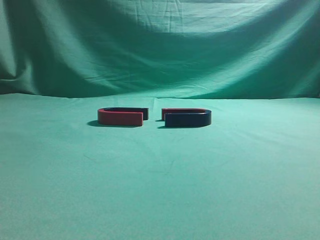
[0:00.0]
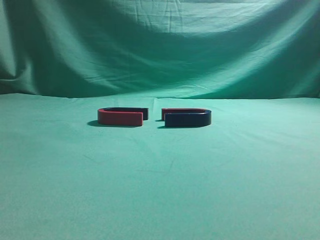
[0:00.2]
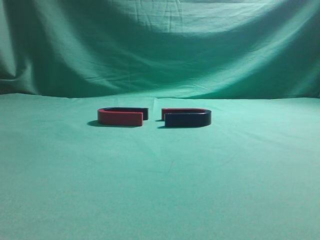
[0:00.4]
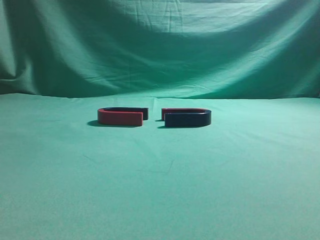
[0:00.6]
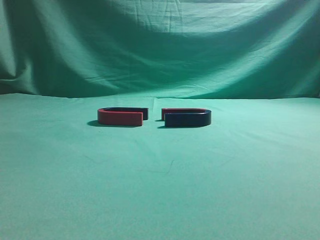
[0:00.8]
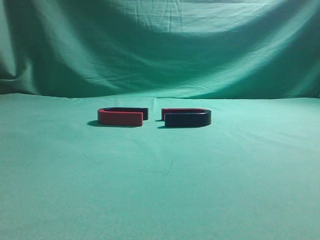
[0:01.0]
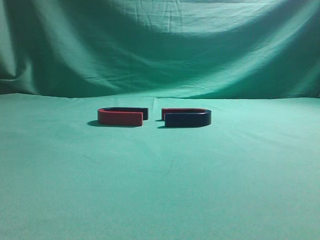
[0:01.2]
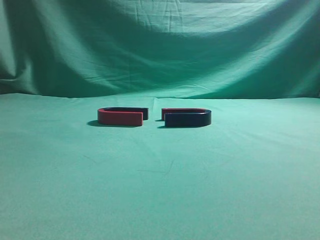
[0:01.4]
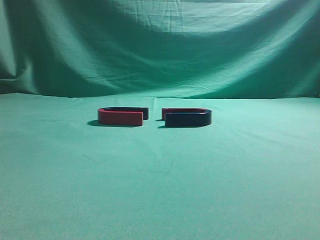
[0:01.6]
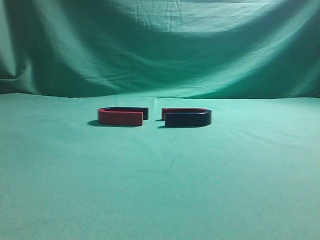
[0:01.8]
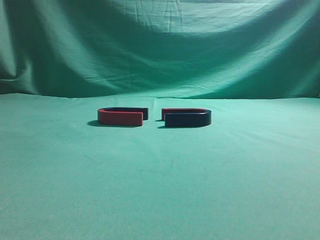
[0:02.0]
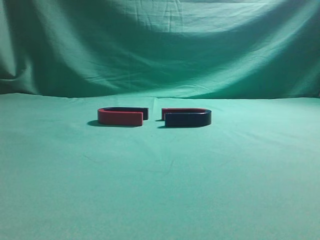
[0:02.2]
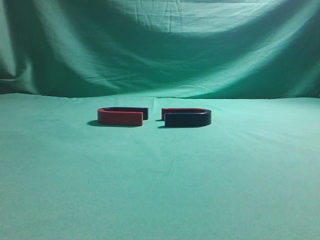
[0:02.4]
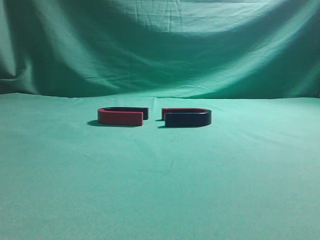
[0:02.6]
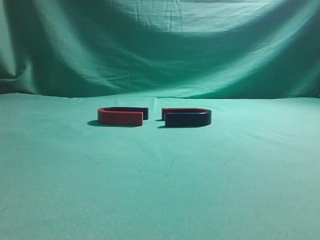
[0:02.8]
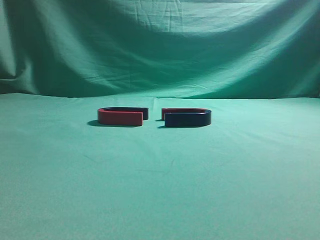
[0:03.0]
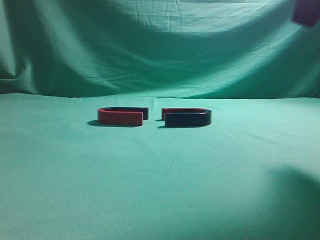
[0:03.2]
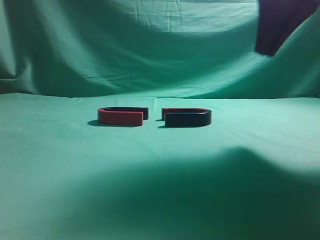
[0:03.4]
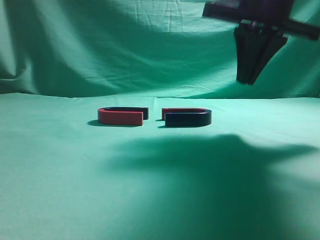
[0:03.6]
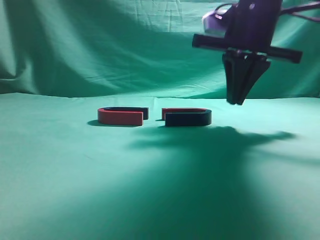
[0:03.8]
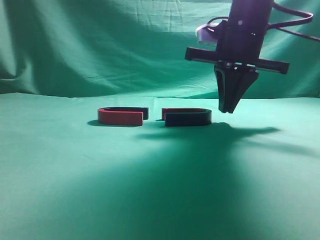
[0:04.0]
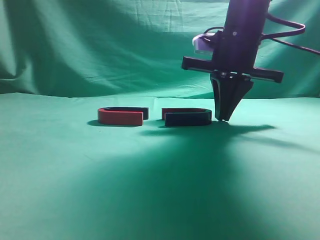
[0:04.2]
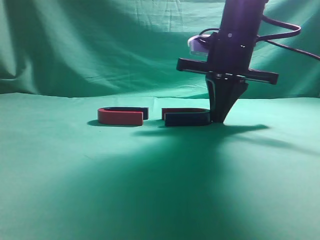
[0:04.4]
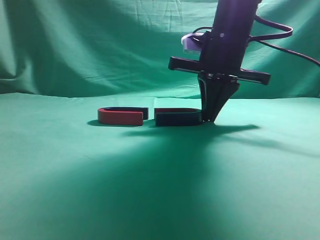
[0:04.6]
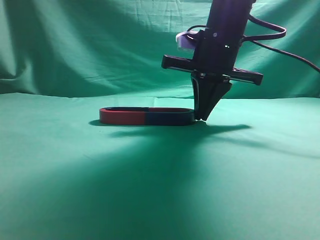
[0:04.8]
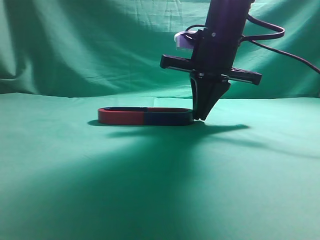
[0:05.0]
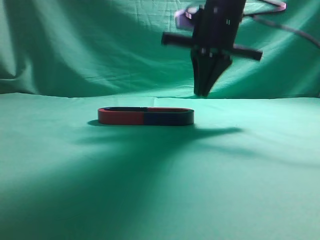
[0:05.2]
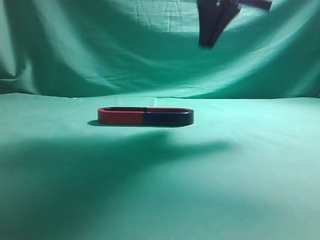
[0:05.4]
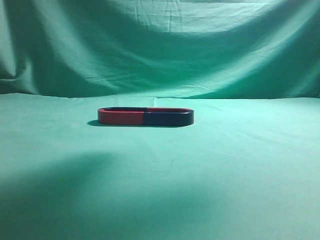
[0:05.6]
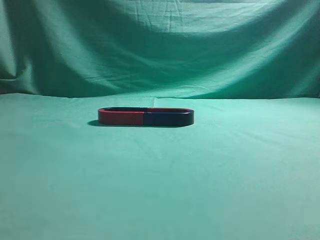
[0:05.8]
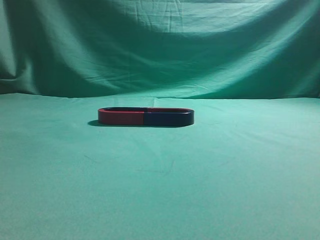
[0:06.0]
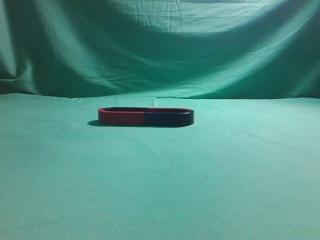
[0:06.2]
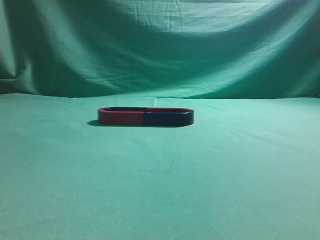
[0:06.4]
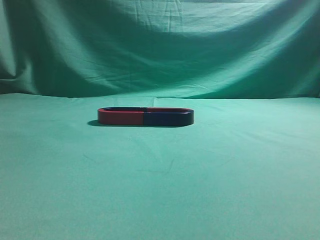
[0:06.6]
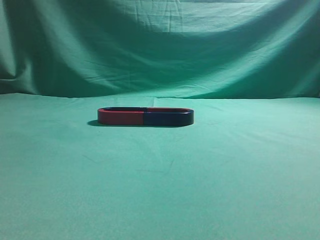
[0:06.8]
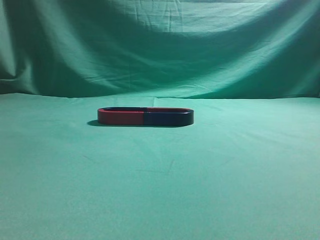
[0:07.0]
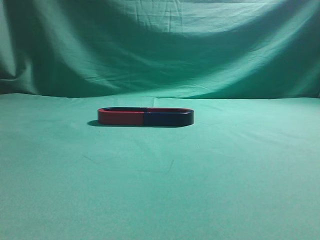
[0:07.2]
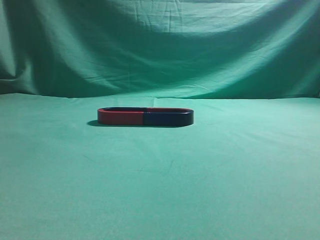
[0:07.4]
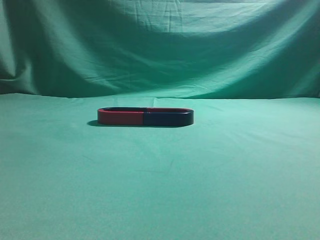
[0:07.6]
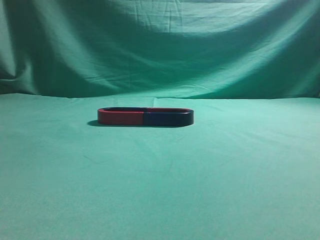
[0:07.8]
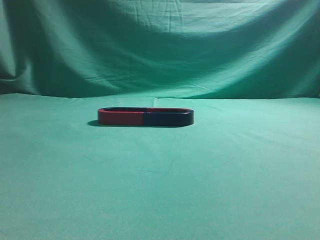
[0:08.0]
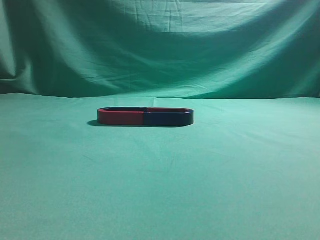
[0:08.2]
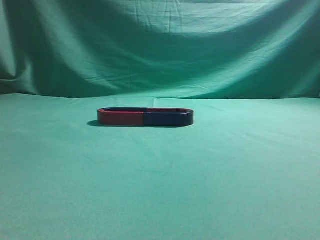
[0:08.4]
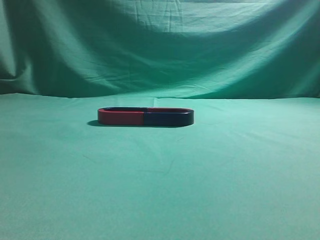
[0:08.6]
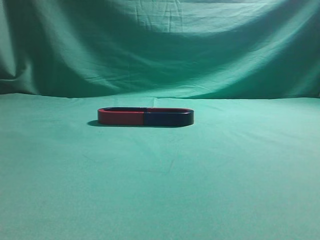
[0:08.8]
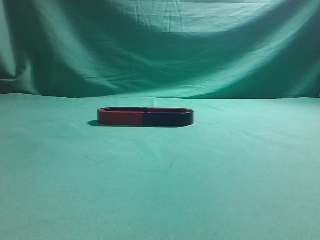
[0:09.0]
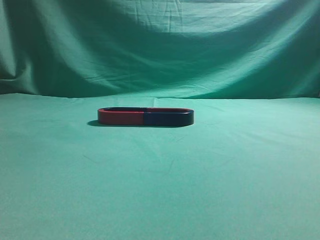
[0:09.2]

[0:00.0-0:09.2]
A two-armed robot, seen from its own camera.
Task of the whole recording: push the magnet on the table from its original position to another position.
Step, 0:00.0 to 0:05.0: Push the magnet on the right to connect the magnet on the left.
0:03.0 to 0:04.6: The right gripper travels forward, to the left and downward by roughly 25 cm.
0:04.6 to 0:06.2: The right gripper is displaced upward and backward by roughly 30 cm.
